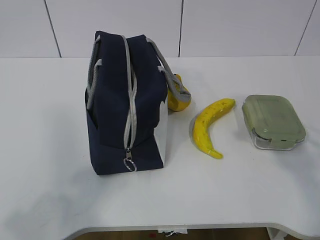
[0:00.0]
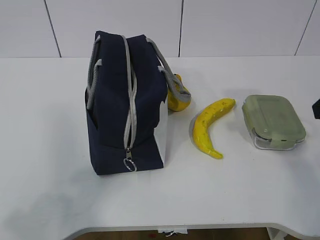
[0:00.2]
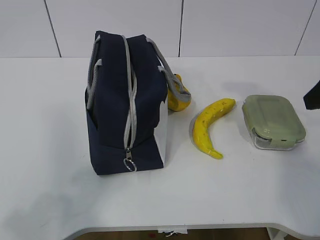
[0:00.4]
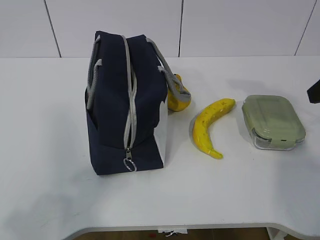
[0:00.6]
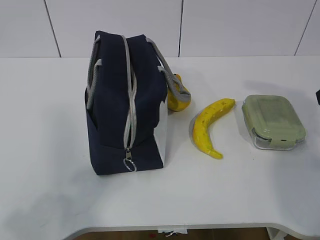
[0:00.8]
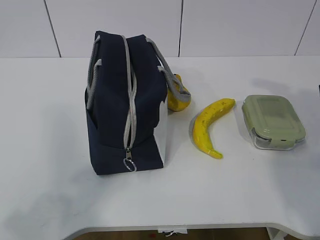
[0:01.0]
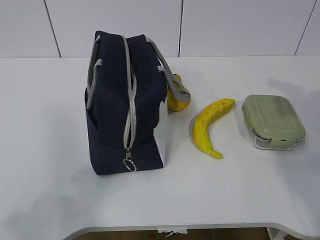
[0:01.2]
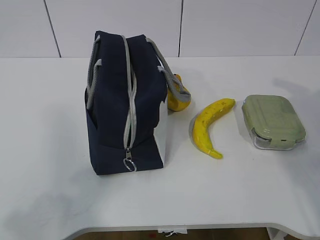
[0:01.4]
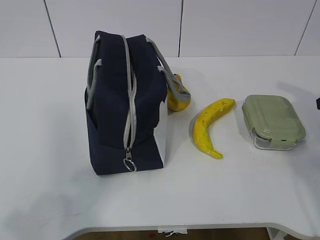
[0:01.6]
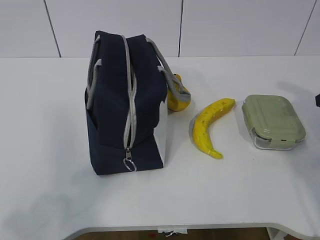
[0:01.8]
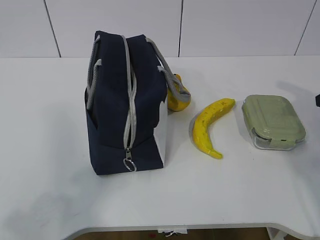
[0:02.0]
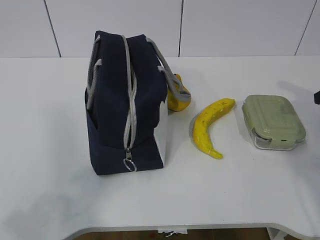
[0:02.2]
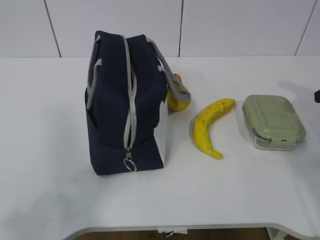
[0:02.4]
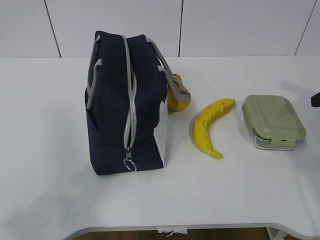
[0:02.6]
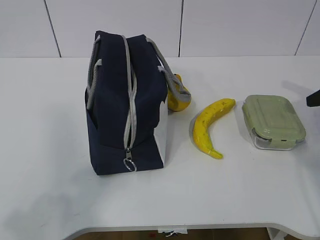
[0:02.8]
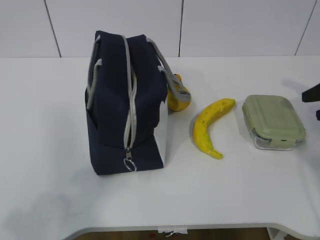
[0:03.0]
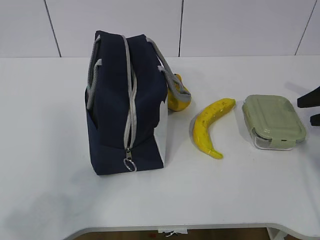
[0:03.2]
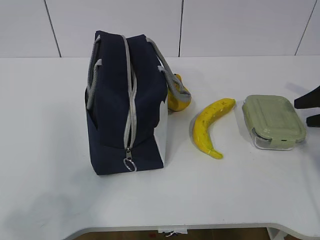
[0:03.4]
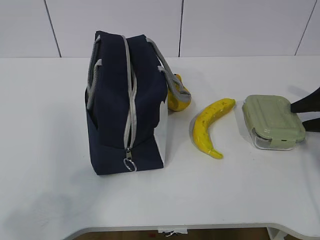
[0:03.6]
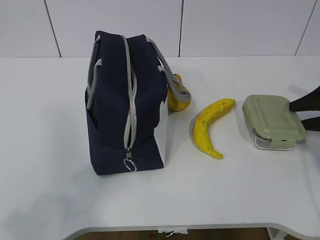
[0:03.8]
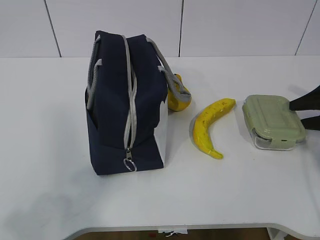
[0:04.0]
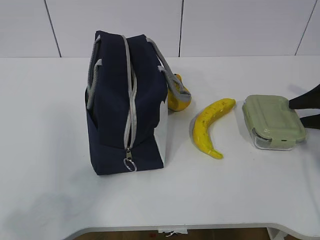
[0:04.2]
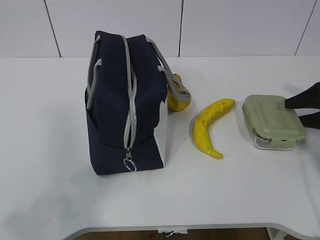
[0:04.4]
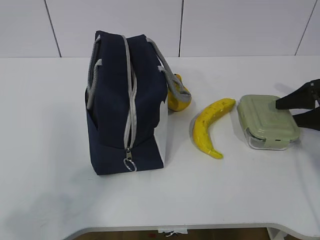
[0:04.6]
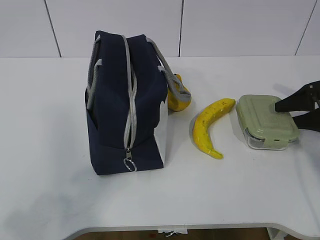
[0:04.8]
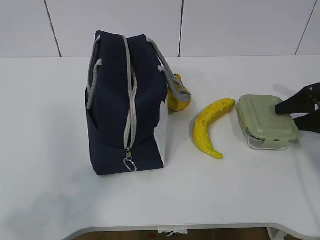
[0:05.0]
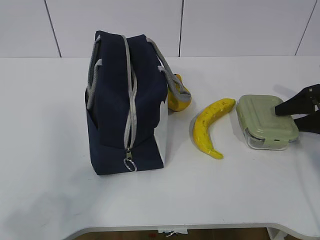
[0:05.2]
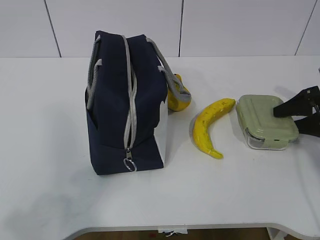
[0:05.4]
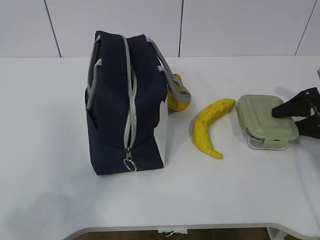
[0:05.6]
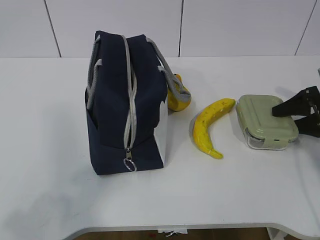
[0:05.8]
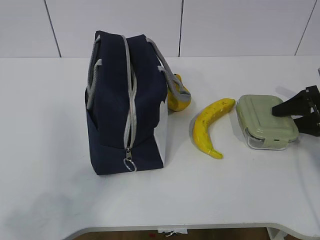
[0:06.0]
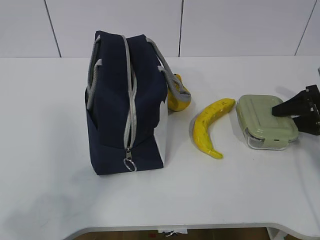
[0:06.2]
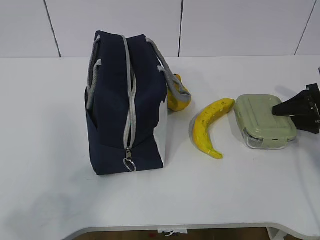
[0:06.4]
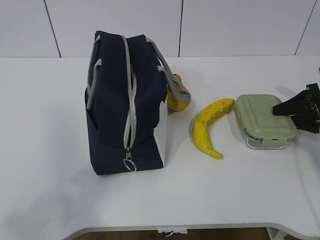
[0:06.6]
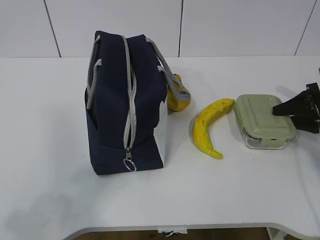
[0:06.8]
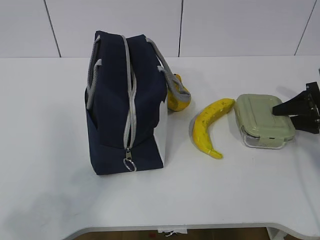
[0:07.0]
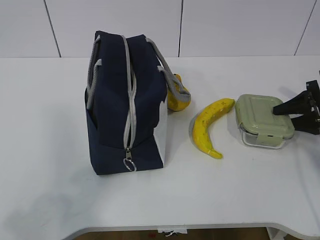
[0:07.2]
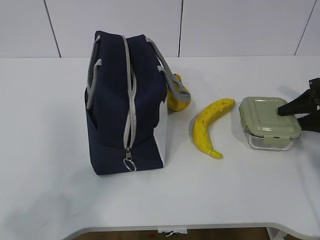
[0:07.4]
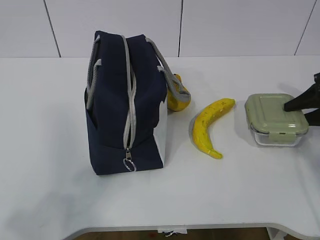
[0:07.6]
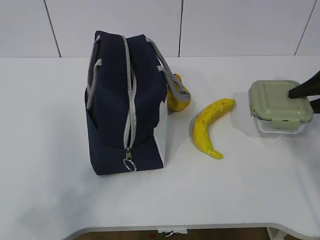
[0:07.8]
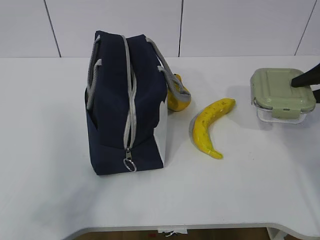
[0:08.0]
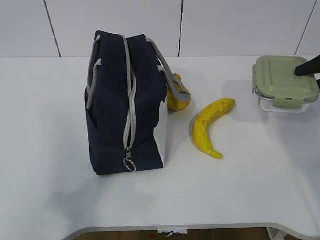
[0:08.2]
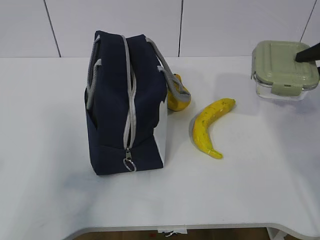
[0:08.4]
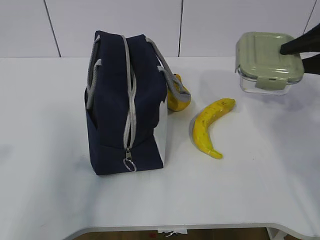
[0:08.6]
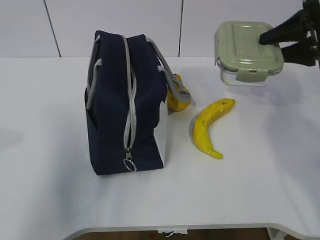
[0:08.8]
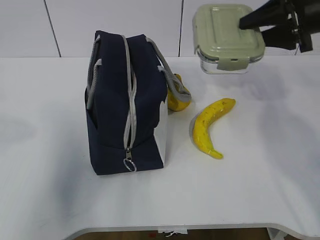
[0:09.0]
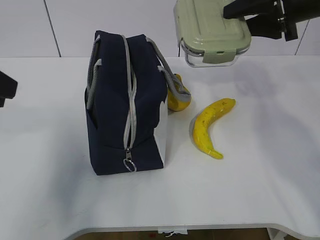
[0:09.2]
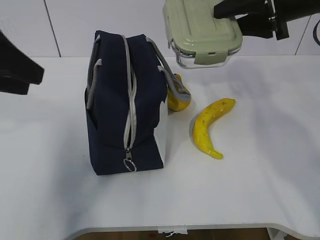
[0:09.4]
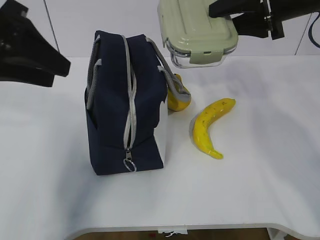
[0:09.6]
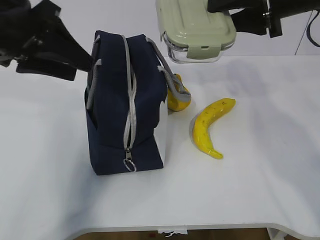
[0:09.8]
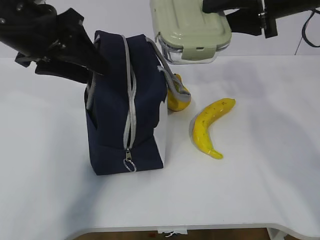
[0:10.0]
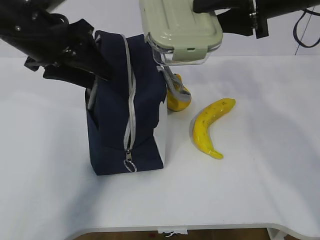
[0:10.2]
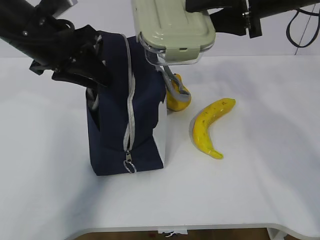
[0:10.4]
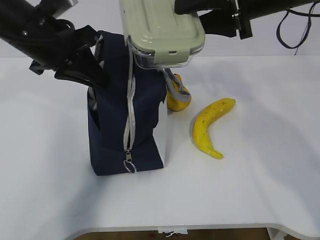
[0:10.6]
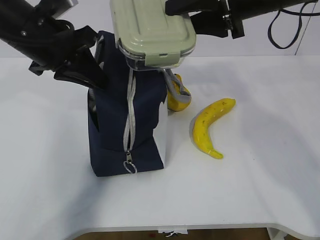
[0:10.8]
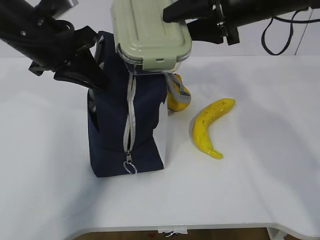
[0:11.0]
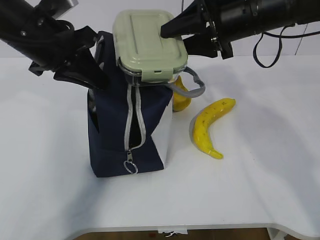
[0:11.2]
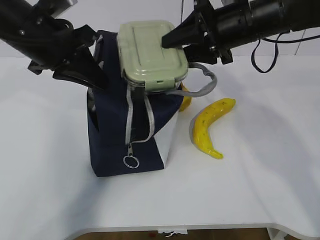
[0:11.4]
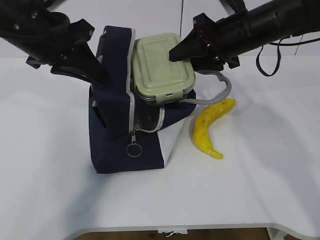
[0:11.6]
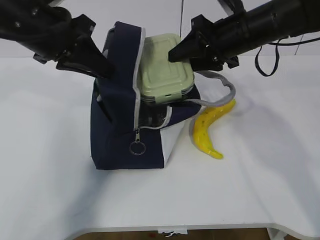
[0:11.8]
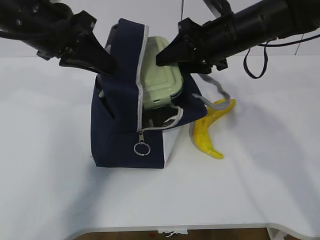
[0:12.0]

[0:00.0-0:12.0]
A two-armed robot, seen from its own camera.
Step, 0:00.0 to 0:05.2: Grab the lunch box with your right hand.
Step, 0:05.6 to 0:08.6: Grab the lunch bag with your left hand.
Step, 0:08.8 to 0:11.6: Place it into the bag with your right hand.
0:01.6 to 0:03.0: The right gripper changes place by about 5 cm.
0:03.0 to 0:04.4: The right gripper heads downward, covering some 5 cm.
0:04.4 to 0:07.6: The grippers stay close to where they were, moving slightly.
0:07.6 to 0:09.0: The right gripper shifts approximately 20 cm upward and to the left. The left gripper heads forward, covering about 20 cm.
0:09.0 to 0:10.4: The right gripper shifts roughly 10 cm to the left. The left gripper moves forward and to the right, some 20 cm, and opens and closes again.
0:10.4 to 0:12.0: The left gripper closes up. Meanwhile the right gripper heads downward, covering some 5 cm.

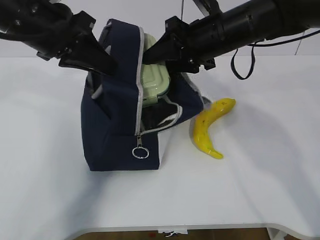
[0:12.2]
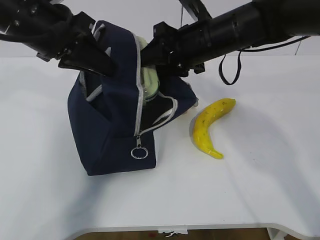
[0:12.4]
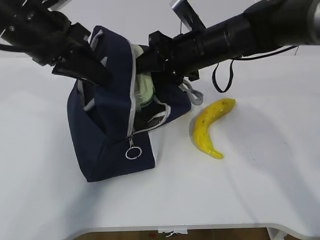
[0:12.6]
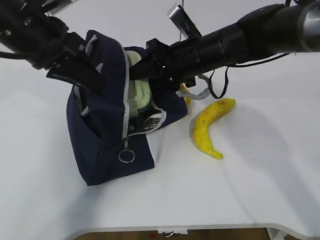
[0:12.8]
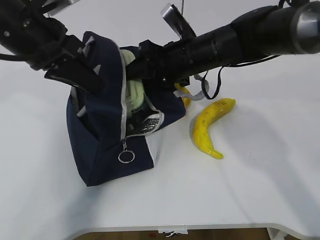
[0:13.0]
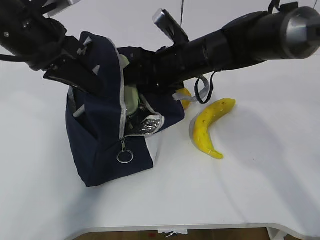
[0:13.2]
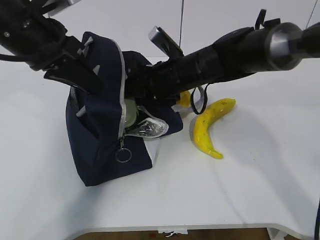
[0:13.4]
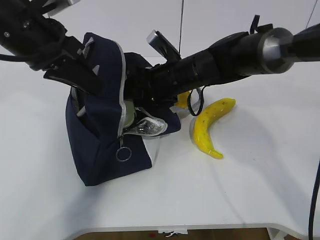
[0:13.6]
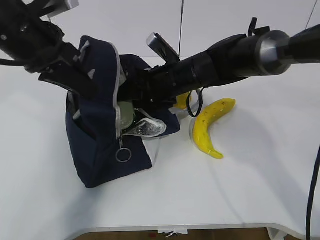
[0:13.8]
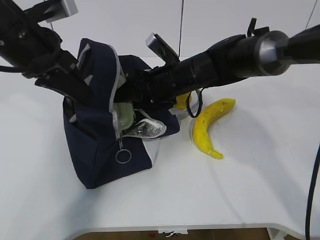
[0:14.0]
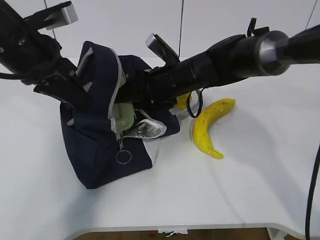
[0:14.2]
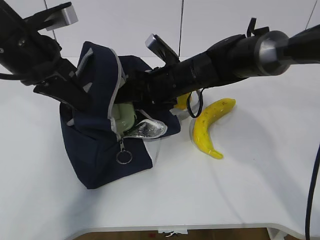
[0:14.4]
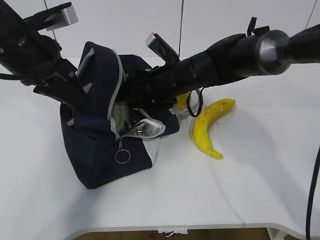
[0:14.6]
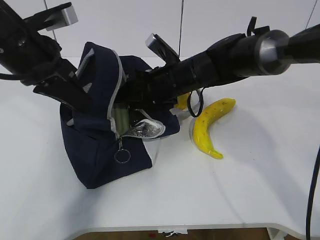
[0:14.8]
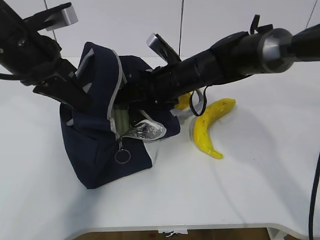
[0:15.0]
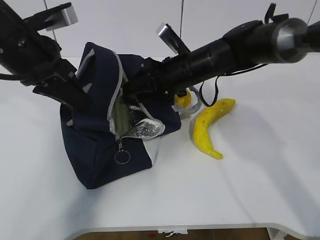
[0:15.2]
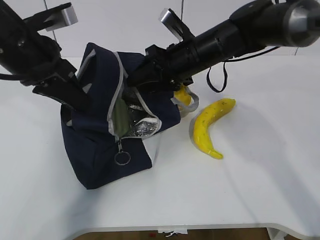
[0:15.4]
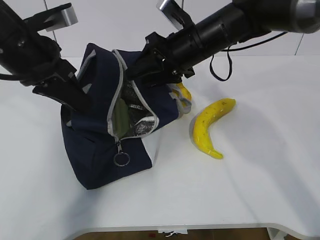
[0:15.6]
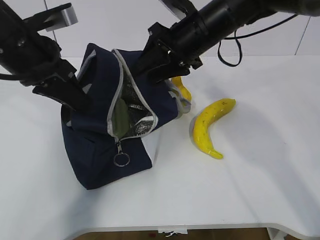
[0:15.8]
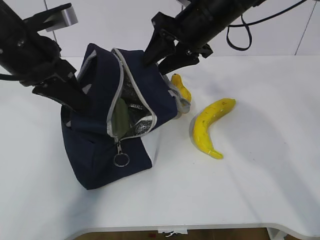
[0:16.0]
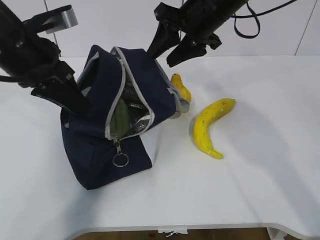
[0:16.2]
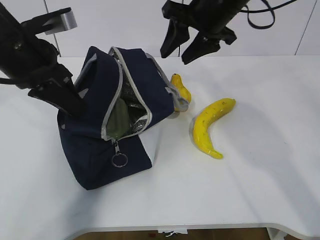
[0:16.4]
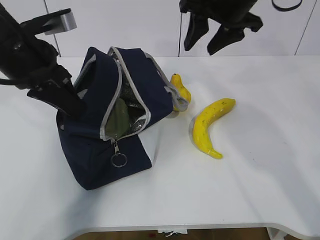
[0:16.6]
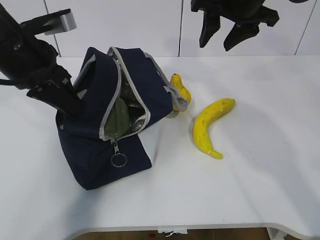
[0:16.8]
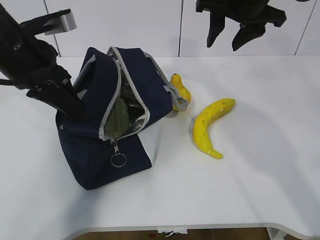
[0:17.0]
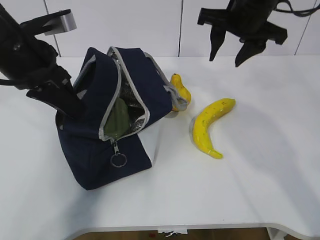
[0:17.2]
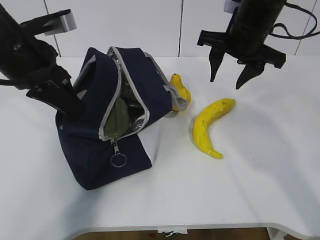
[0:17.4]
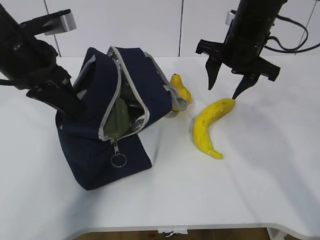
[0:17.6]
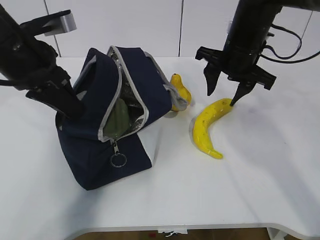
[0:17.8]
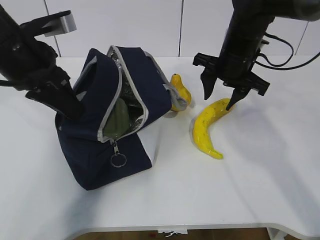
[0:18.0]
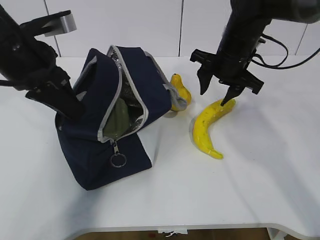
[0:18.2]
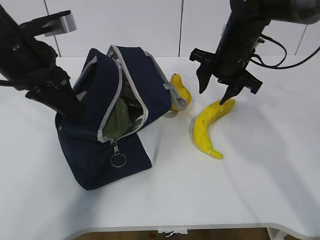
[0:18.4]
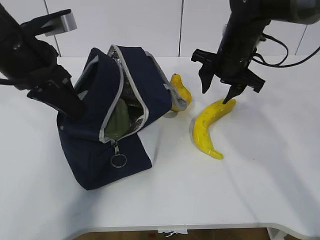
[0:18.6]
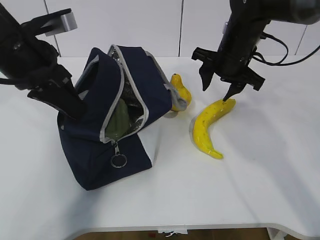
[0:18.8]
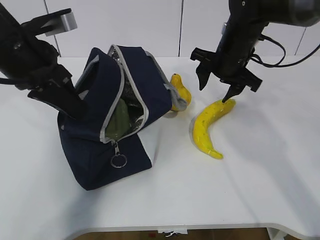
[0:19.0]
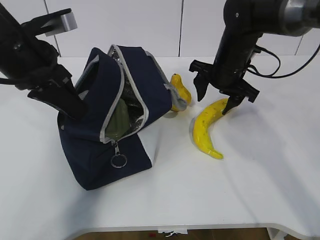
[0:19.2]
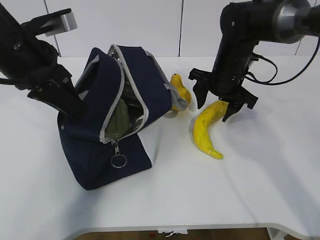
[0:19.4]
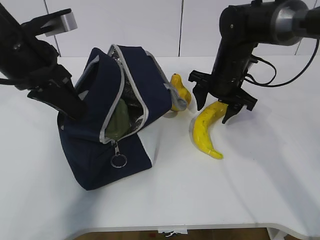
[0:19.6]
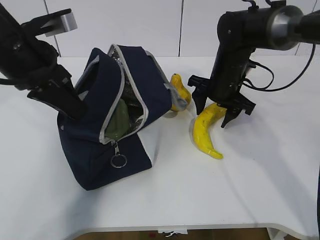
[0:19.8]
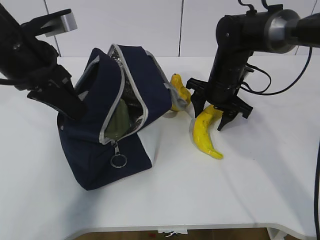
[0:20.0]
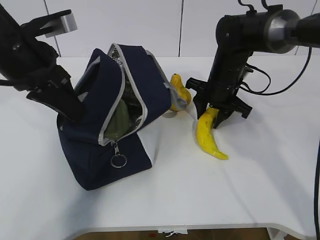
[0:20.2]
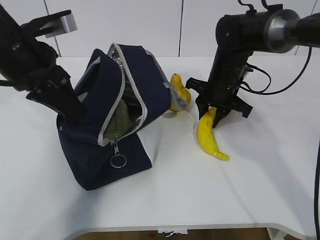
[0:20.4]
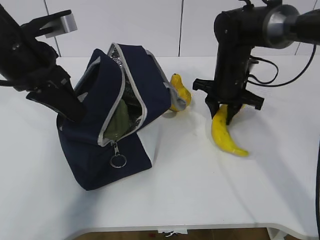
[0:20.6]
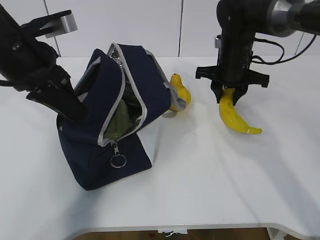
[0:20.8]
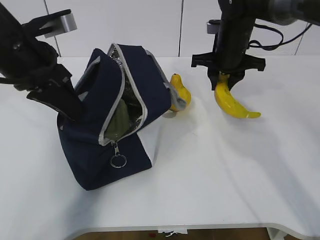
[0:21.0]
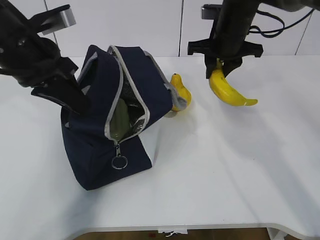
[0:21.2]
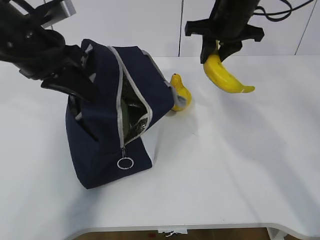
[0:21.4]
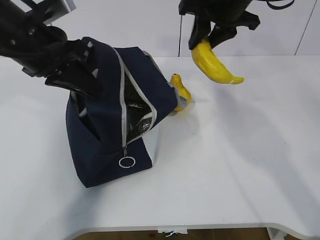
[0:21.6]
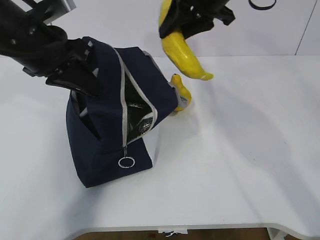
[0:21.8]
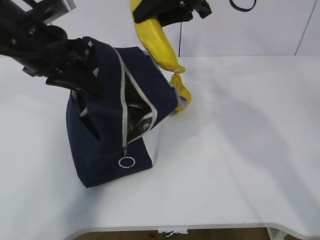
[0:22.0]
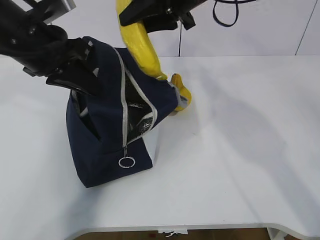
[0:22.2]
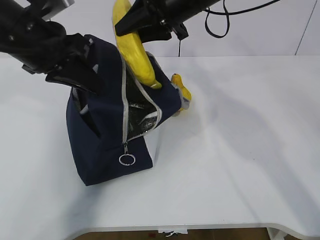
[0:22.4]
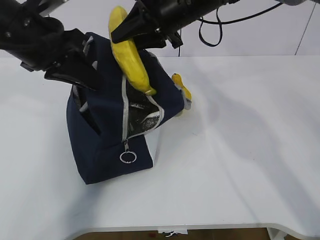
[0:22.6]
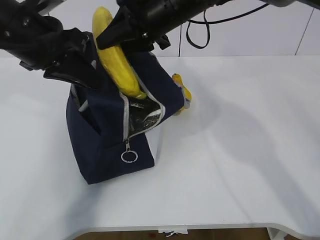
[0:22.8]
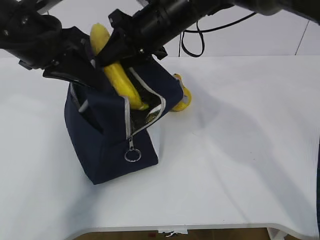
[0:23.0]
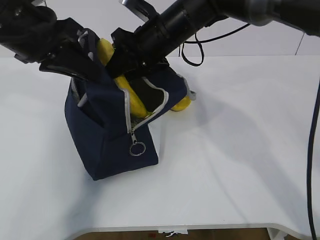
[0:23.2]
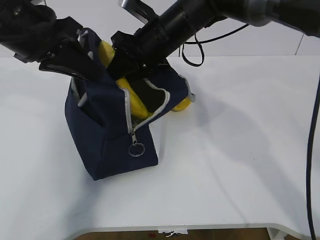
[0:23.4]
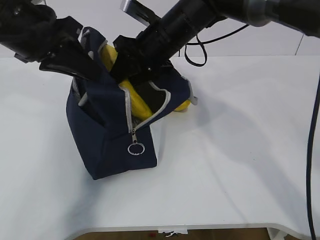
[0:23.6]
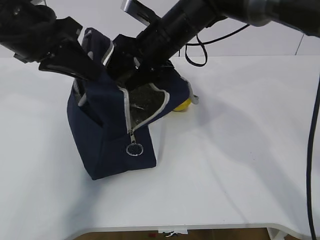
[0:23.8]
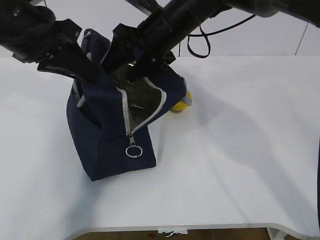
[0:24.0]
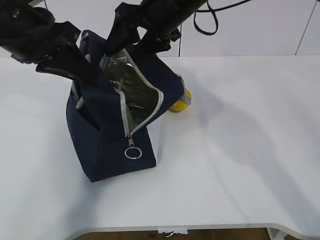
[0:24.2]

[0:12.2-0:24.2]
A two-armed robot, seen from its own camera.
Step, 0:12.2 to 0:16.4: Grab the banana with your right hand.
Step, 0:16.6 to 0:19.2: Place it into the bag with your right hand.
Step, 0:19.4 to 0:22.2: Grab the pear with your right hand.
0:12.2 to 0:13.8: The right gripper travels downward and to the left by some 10 cm.
0:13.8 to 0:15.2: The grippers stay close to where they were, moving slightly.
0:15.2 to 0:16.6: The right gripper goes roughly 15 cm upward and to the right.
0:16.6 to 0:18.2: The right gripper goes about 10 cm downward.
0:18.2 to 0:19.8: The right gripper shifts roughly 5 cm downward.
0:19.8 to 0:21.2: The right gripper heads upward, covering roughly 10 cm, and closes its fingers.
0:21.2 to 0:22.6: The right gripper is displaced to the left and upward by some 10 cm.
0:22.6 to 0:24.2: The right gripper opens.
